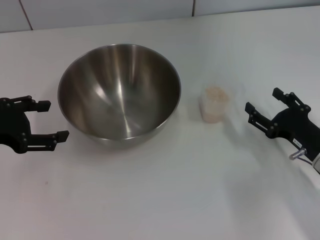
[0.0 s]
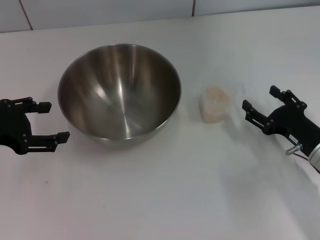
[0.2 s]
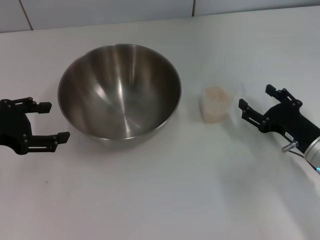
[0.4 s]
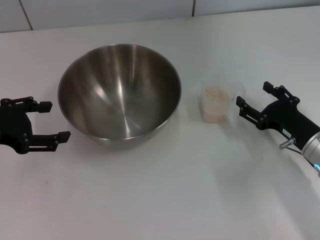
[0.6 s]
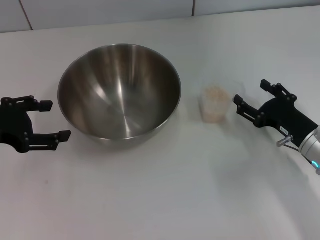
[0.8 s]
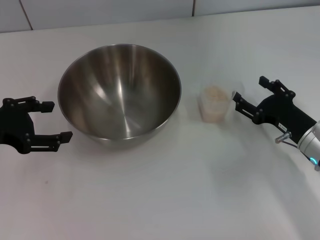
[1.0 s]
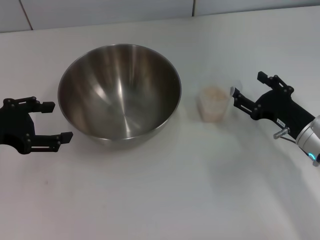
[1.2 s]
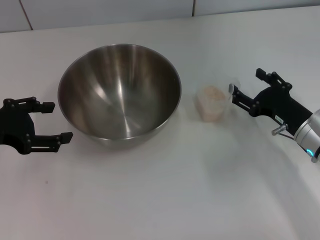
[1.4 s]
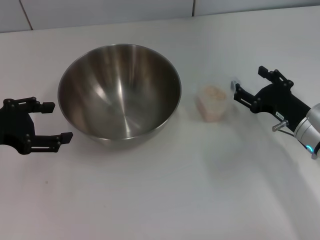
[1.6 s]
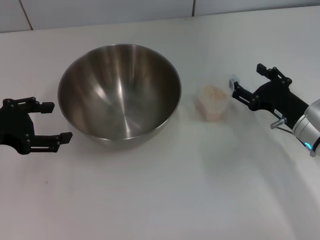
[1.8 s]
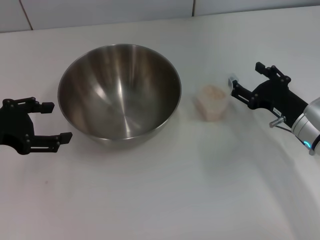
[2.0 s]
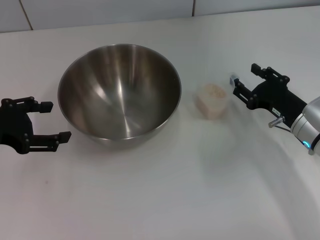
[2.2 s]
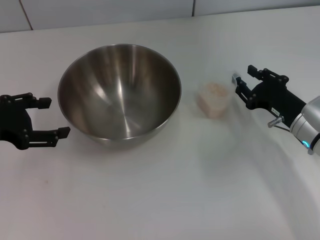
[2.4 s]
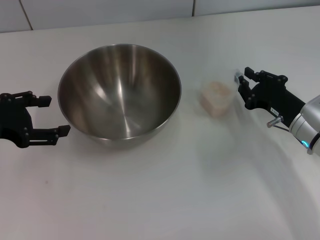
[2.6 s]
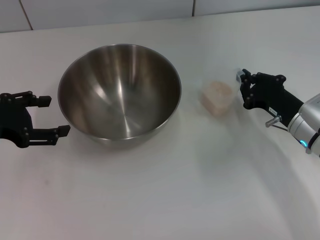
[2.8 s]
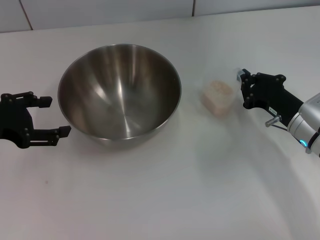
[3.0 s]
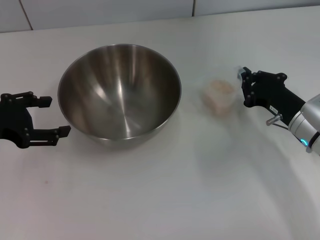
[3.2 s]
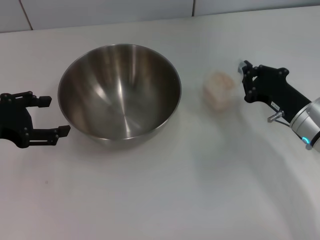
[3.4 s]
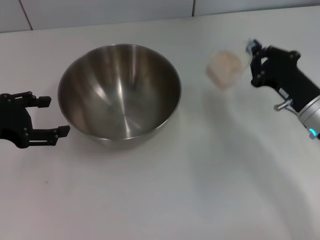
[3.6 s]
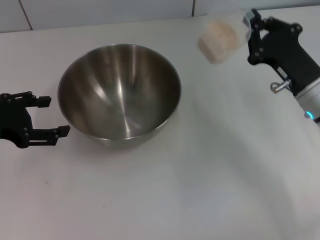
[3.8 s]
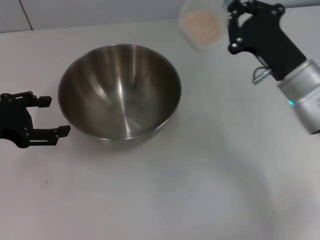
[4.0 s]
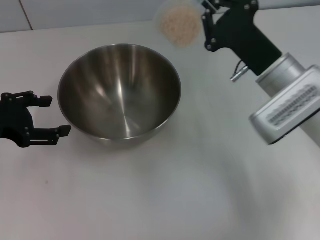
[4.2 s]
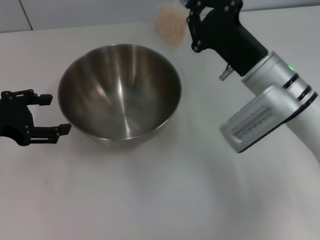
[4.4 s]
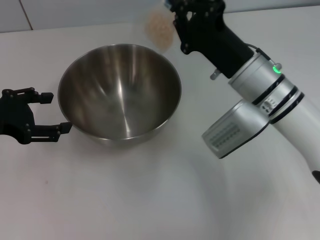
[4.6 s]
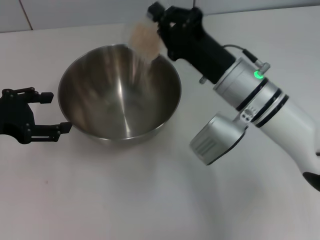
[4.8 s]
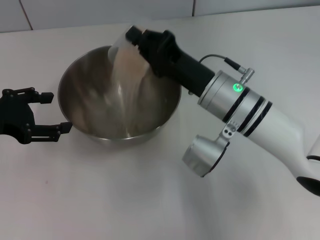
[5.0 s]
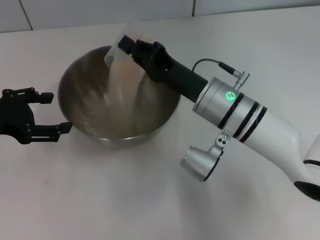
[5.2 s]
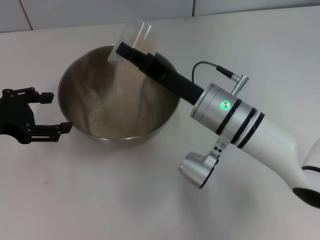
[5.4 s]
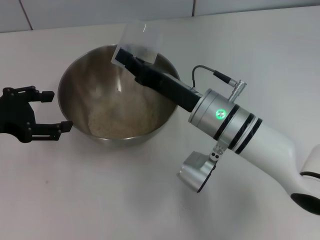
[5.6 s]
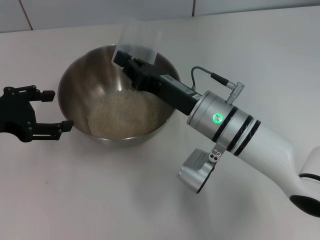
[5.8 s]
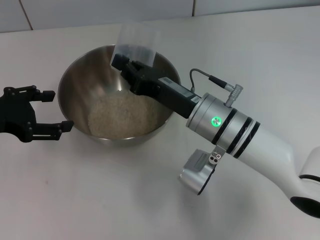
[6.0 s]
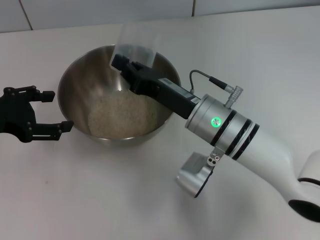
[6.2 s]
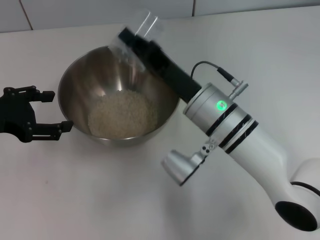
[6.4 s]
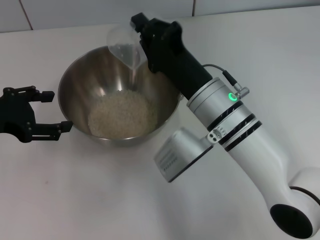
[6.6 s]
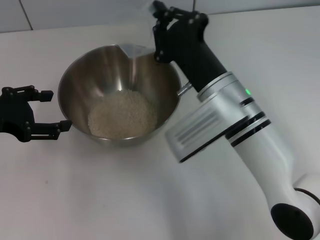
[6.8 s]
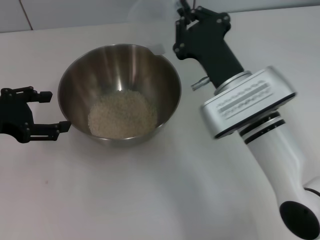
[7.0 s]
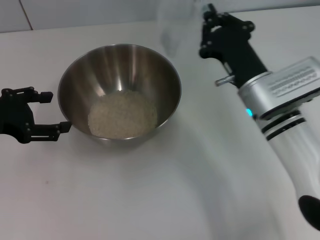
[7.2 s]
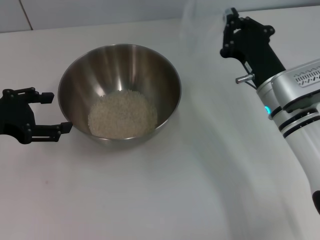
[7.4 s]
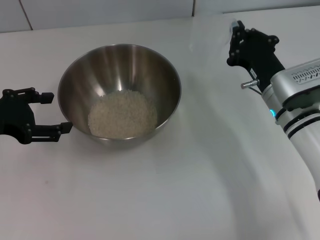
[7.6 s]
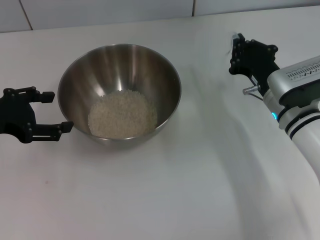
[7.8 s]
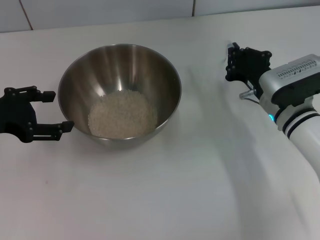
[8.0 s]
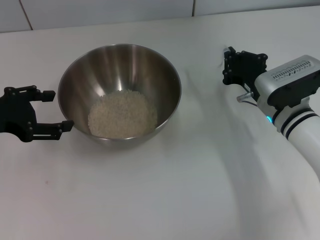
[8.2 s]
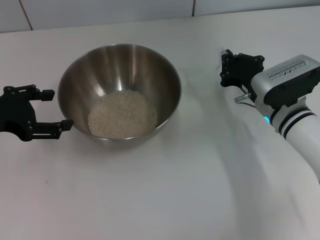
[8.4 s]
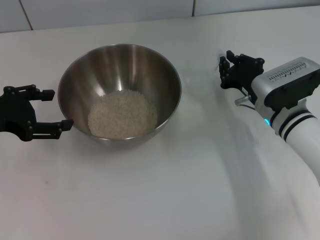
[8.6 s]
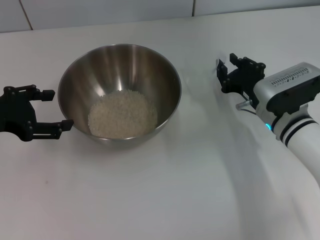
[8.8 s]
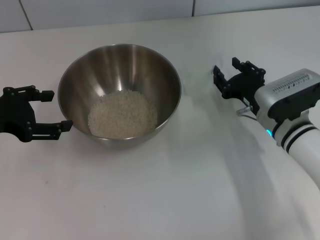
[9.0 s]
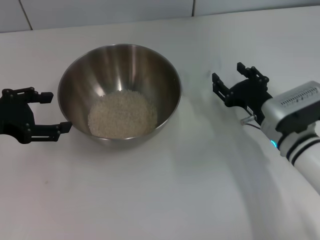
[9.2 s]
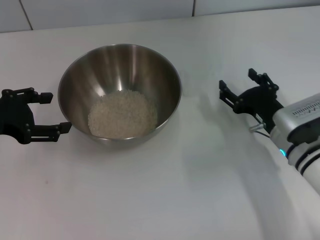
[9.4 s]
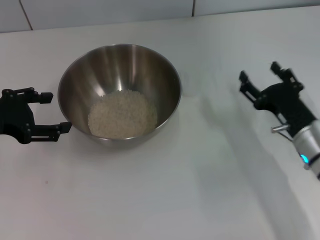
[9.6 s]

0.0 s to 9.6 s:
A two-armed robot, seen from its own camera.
Task of the whole recording: Place the bowl in the middle of the table with one hand and pour the rice from the grain cup into it with the other hand.
Step, 0.0 to 3.8 s: Pick up the cup with rice in it with the right gripper.
Step, 4.2 to 6.6 s: Pour the rice from the cup into the bowl with the right gripper.
Step, 7.0 to 9.4 s: Place the cup on the table with the right gripper.
0.0 to 1.6 s: The right gripper shifts some 5 cm forward.
1.6 to 3.2 s: The right gripper closes up.
3.2 to 4.8 s: The right gripper is displaced to the left and upward by approximately 15 cm.
4.8 to 6.4 s: The right gripper ends up about 5 cm from where it was.
6.4 to 8.0 s: The right gripper goes some 15 cm to the right and downward.
8.0 to 9.6 s: The right gripper moves backward, about 10 cm, and opens its fingers.

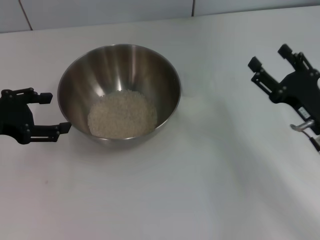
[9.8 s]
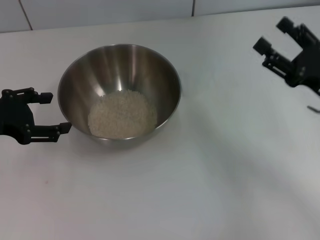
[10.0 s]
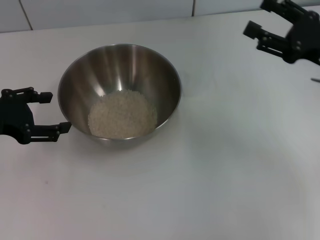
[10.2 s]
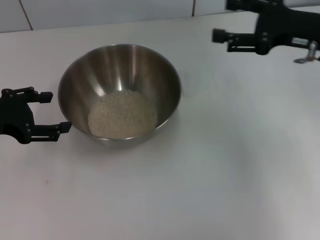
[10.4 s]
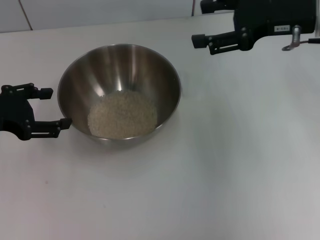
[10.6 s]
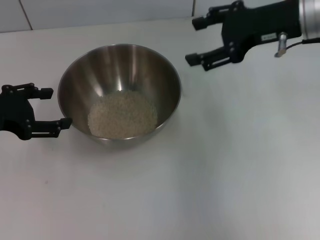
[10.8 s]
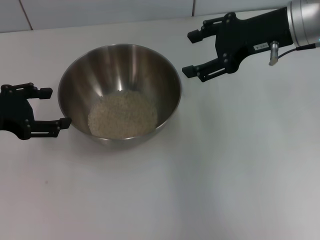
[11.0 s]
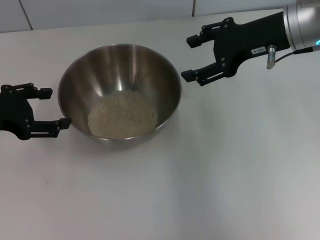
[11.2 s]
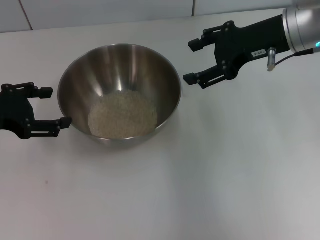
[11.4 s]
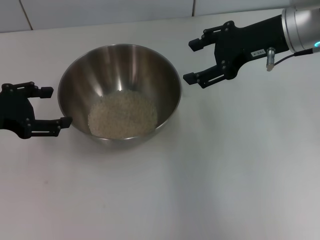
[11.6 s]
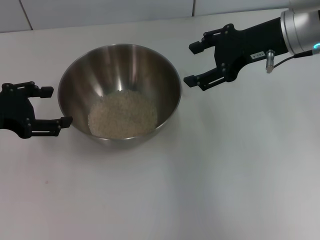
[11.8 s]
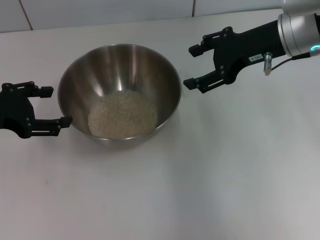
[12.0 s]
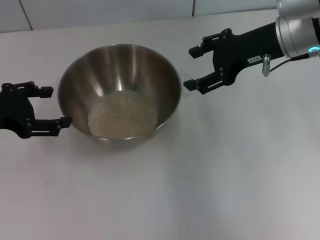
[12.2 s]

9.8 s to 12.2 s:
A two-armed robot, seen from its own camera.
Task of the whole recording: Place the bowl in the middle of the table with one hand and pour the rice from the grain cup into it with the other hand.
9.8 to 11.0 s: The right gripper moves upward and forward, some 20 cm.
11.0 to 12.2 s: The grippers move only a little.

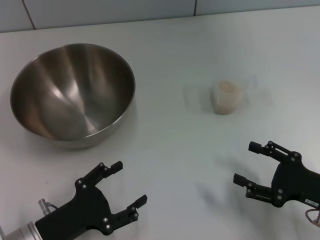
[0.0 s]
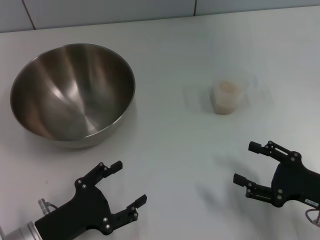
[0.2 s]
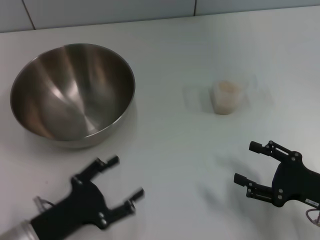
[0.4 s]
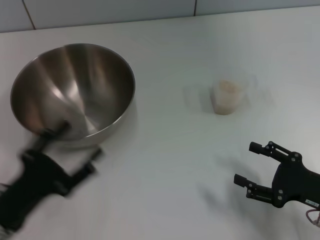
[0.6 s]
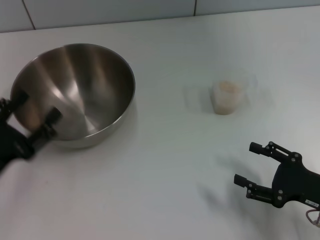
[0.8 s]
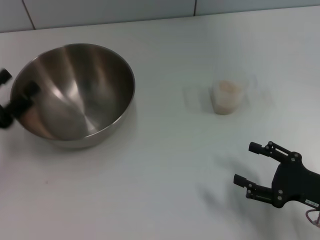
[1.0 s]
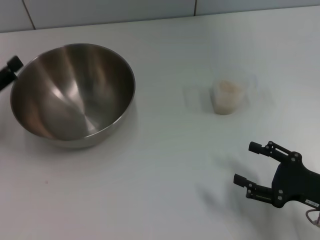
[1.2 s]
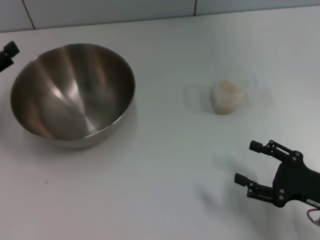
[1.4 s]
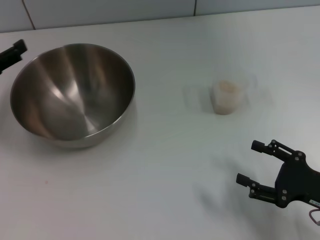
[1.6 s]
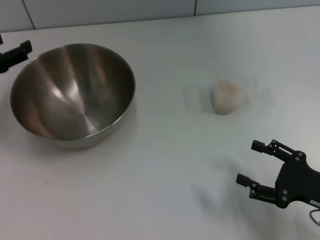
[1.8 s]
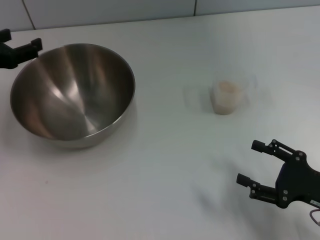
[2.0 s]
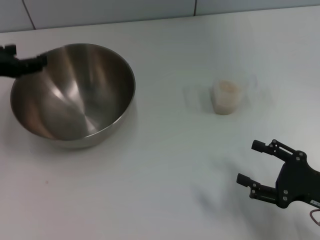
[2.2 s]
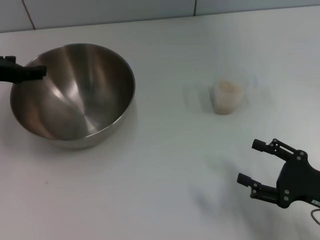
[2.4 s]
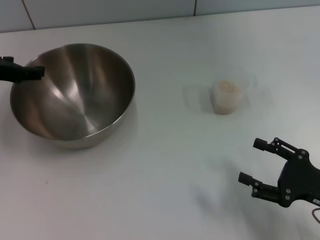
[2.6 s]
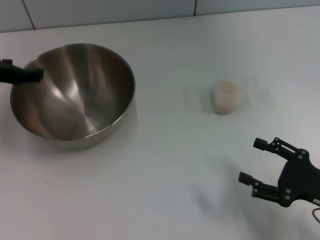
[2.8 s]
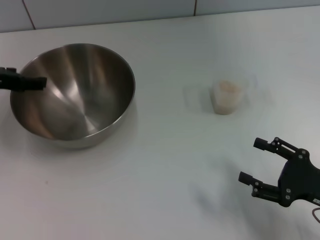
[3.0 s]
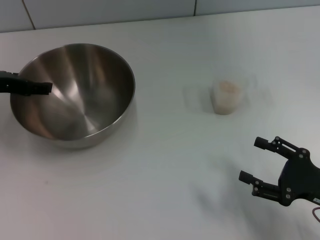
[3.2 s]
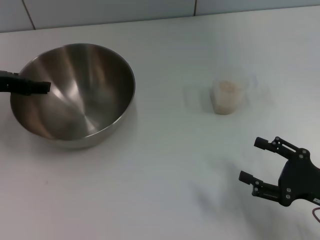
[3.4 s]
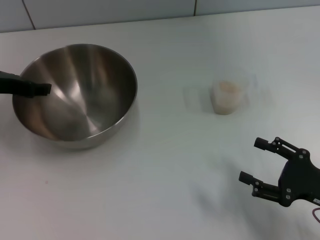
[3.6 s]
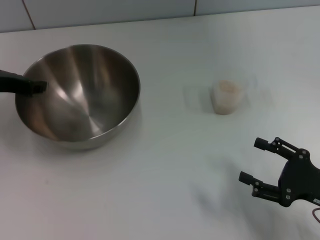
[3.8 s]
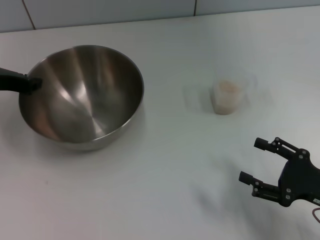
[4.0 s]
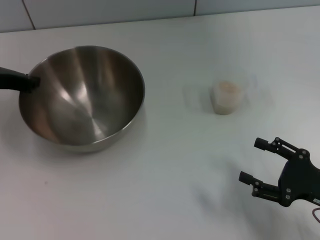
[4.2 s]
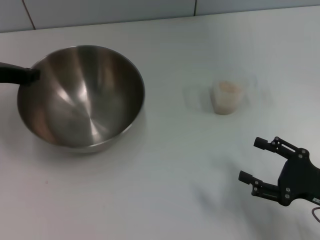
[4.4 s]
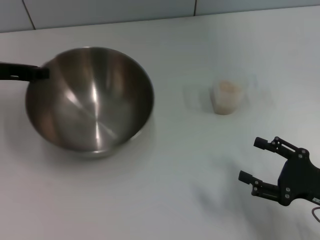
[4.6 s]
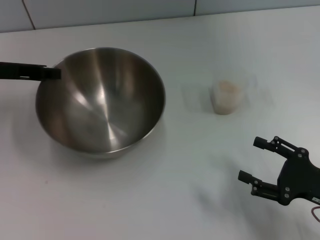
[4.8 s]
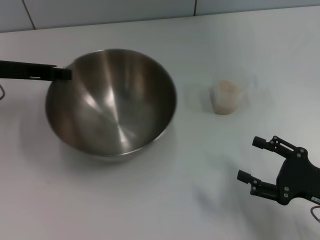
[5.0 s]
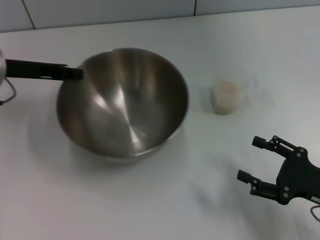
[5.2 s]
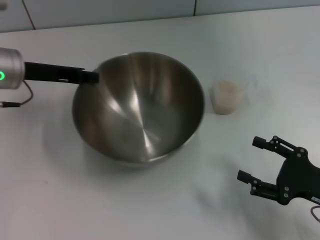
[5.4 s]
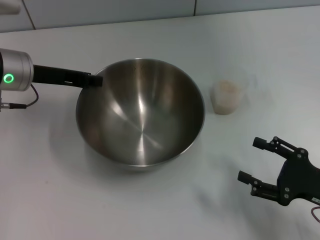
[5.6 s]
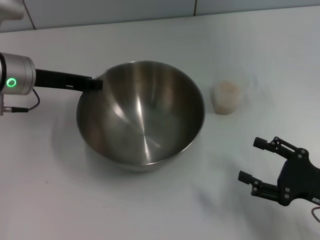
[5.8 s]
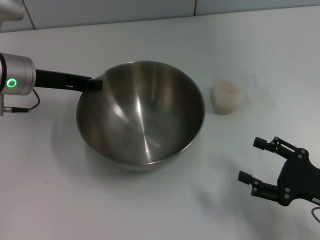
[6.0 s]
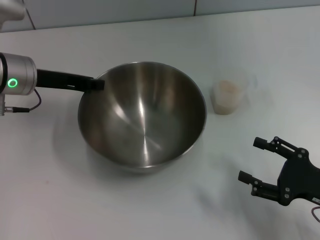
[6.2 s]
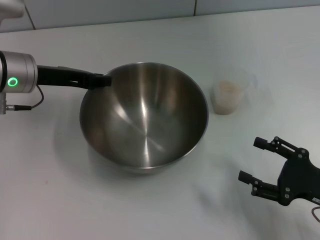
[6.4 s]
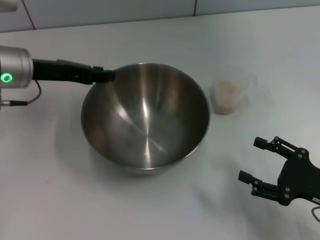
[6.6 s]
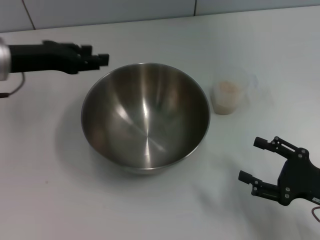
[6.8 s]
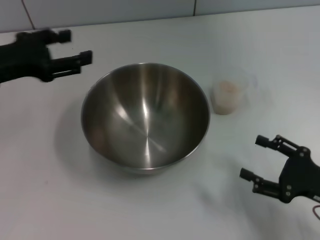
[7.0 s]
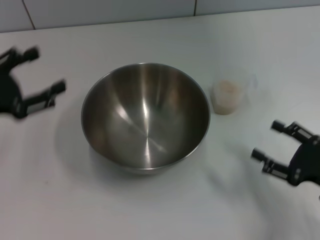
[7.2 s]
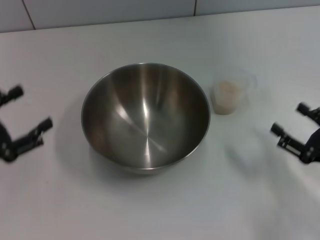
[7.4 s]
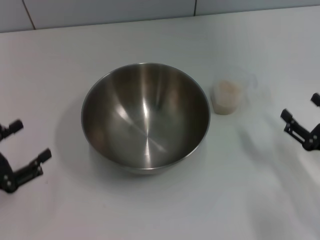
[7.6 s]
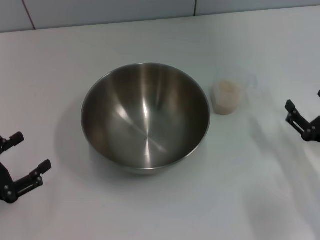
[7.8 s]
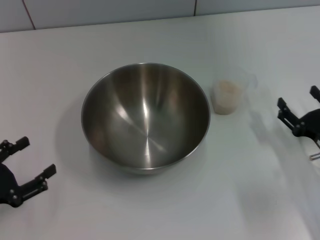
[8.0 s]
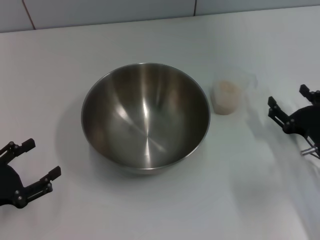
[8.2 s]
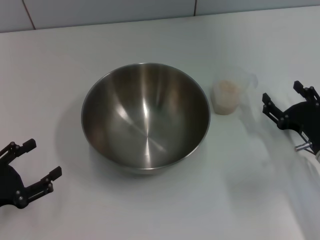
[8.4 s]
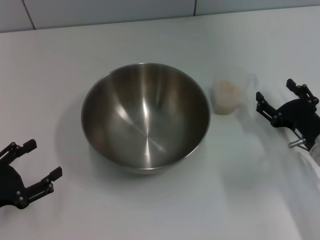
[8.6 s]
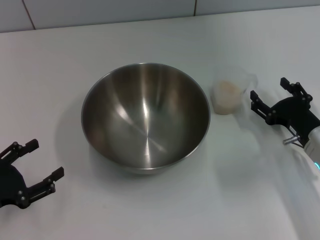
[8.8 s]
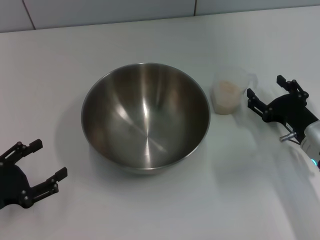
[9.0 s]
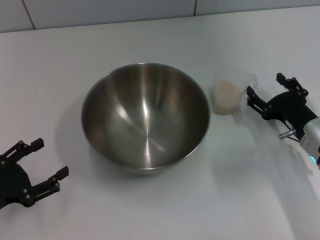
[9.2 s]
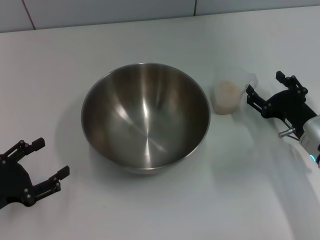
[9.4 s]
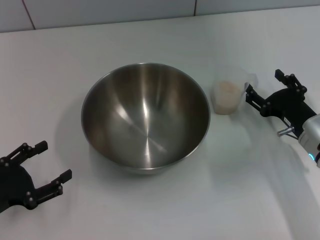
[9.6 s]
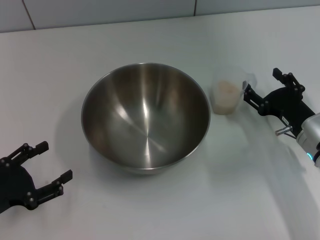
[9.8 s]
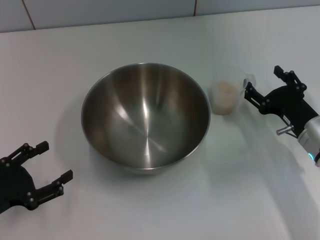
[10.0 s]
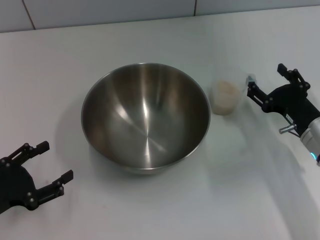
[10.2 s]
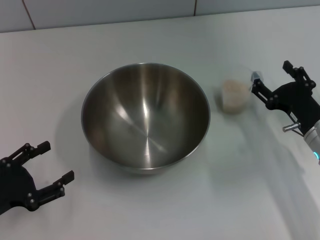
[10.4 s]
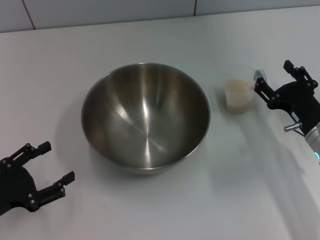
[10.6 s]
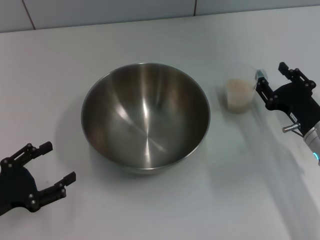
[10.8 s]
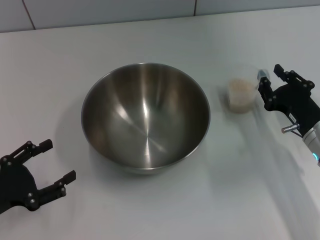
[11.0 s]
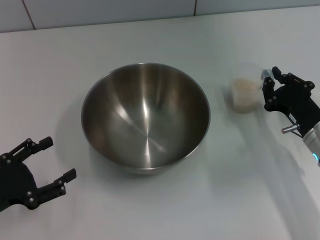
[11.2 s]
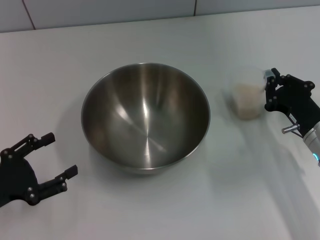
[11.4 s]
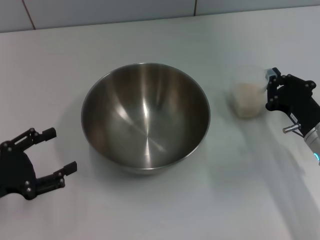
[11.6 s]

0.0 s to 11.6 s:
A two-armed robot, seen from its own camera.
Task of the whole recording: Place the bowl in the middle of the table with one hand and pour the rice from the grain cup into it with the other hand.
Step, 0.0 to 4.4 s: Pick up the bowl with the left gripper.
Step, 4.8 to 6.8 s: Place the bowl in the center of view with the left gripper.
0.0 to 1.4 s: The left gripper is displaced forward, to the left and upward by about 20 cm.
1.4 to 2.8 s: The left gripper shifts roughly 10 cm upward, to the right and forward.
2.8 to 4.4 s: The left gripper closes.
4.4 to 5.8 s: The left gripper moves to the right, roughly 5 cm.
5.8 to 7.2 s: The left gripper travels backward and to the left by some 15 cm, and opens.
7.2 to 8.8 s: The left gripper goes roughly 15 cm downward and backward. The right gripper shifts some 10 cm forward.
8.8 to 10.2 s: There are only small adjustments of the grippers.
10.2 to 11.6 s: The right gripper closes up.
